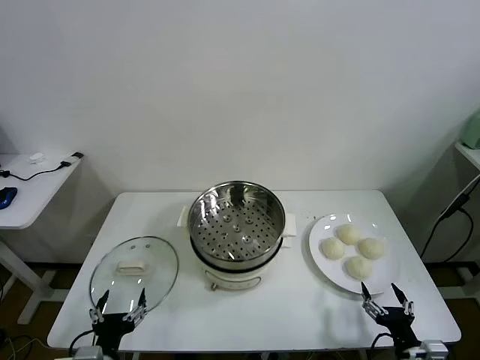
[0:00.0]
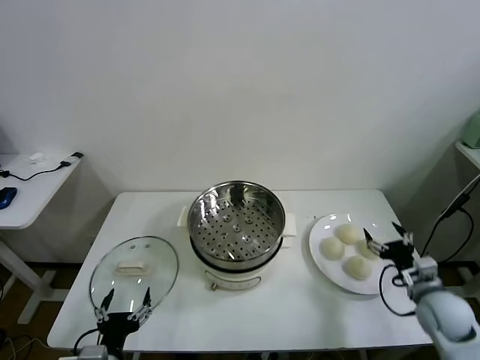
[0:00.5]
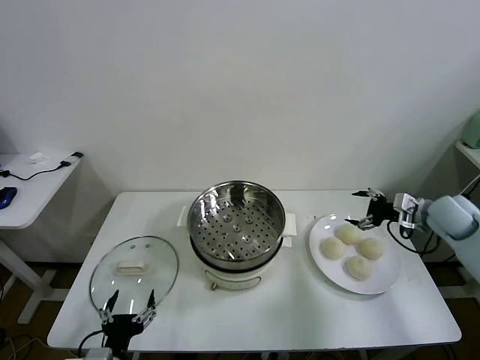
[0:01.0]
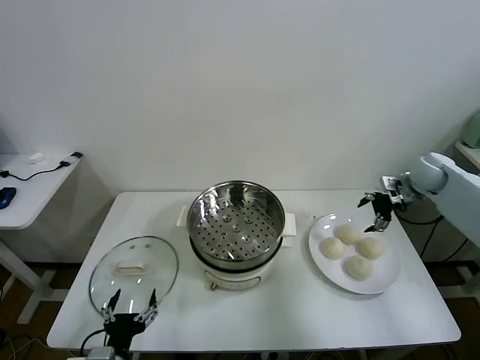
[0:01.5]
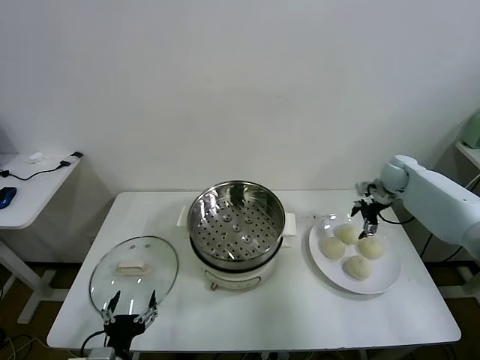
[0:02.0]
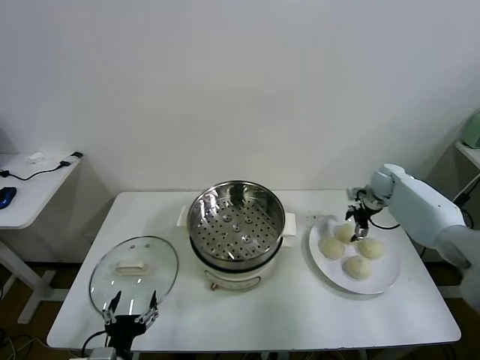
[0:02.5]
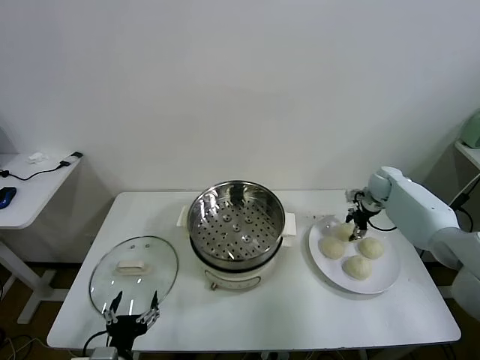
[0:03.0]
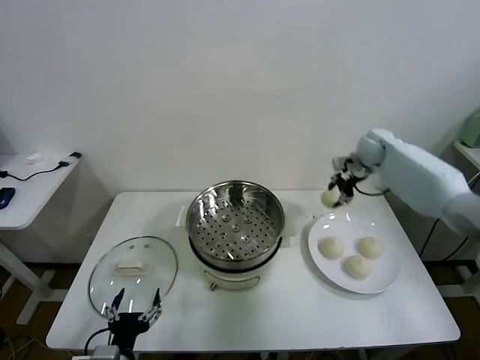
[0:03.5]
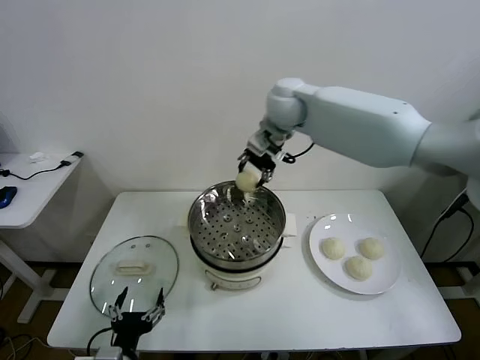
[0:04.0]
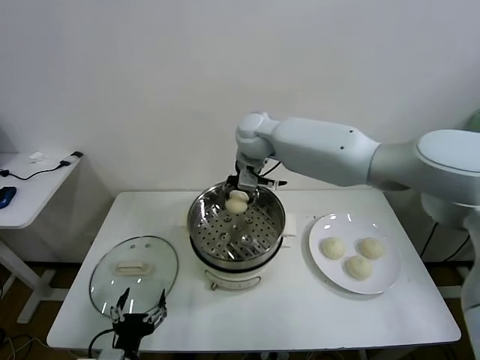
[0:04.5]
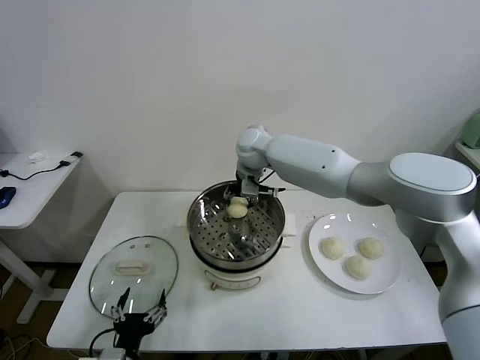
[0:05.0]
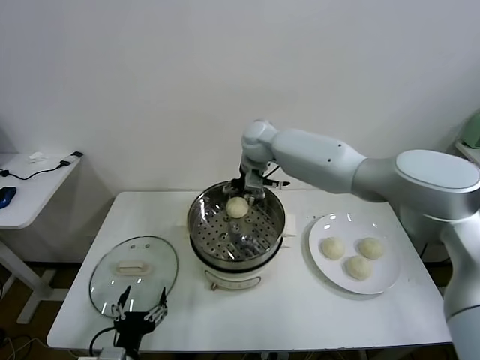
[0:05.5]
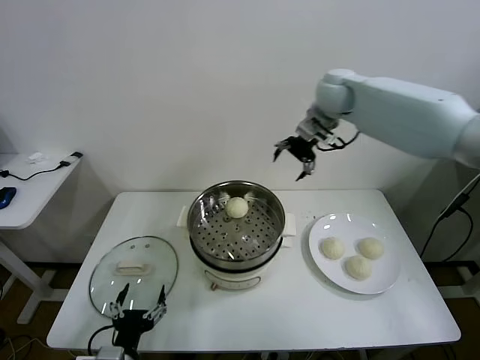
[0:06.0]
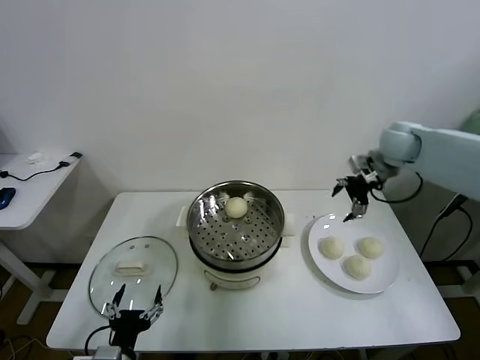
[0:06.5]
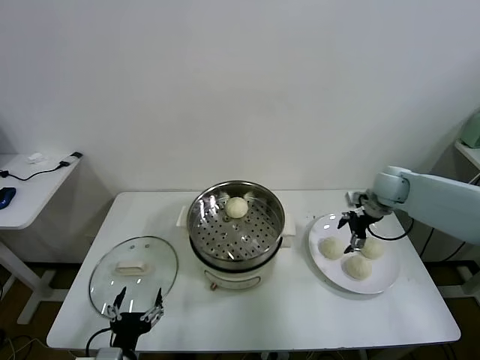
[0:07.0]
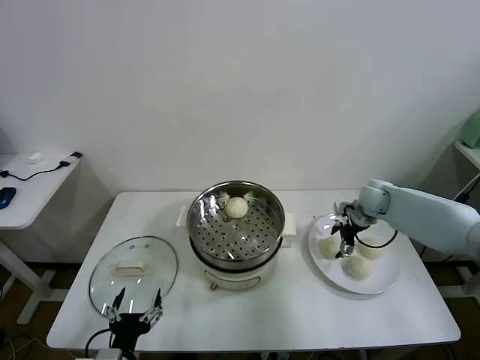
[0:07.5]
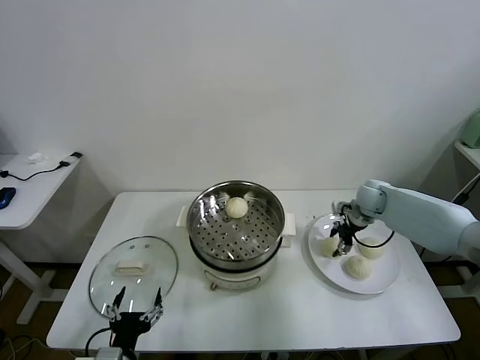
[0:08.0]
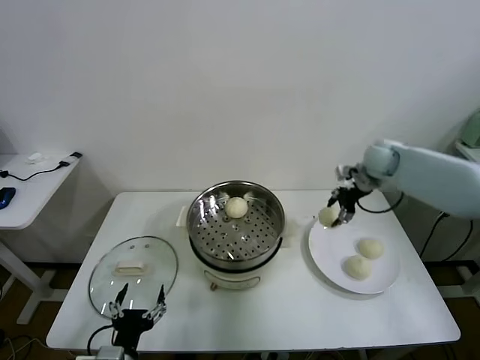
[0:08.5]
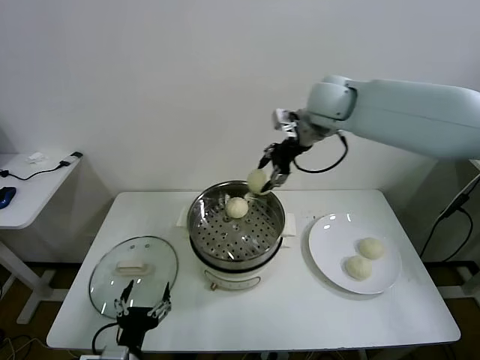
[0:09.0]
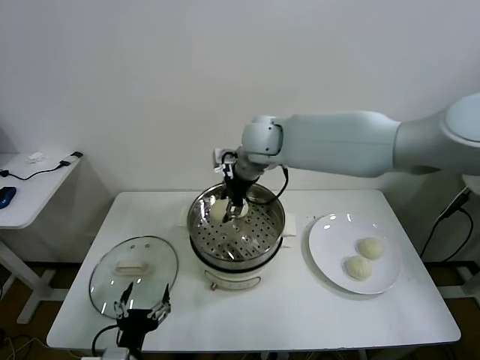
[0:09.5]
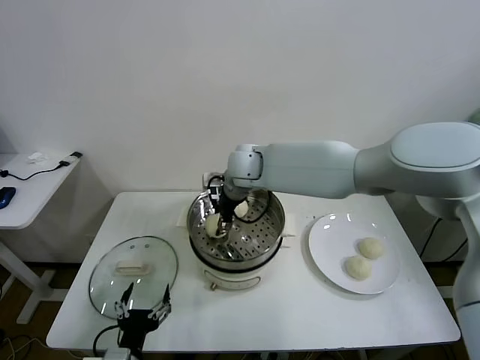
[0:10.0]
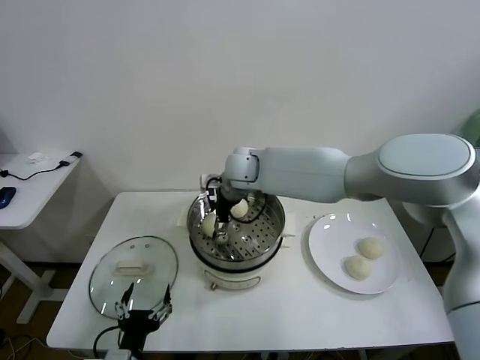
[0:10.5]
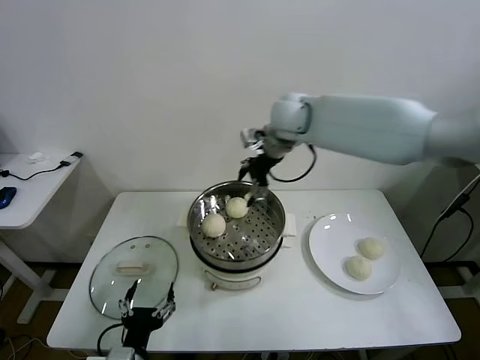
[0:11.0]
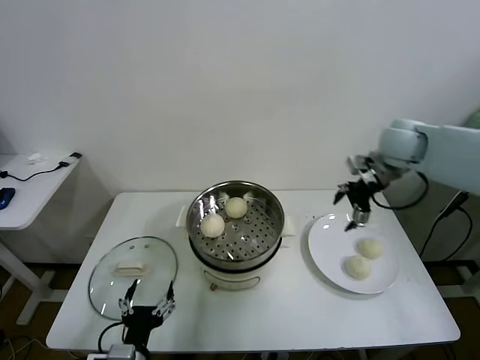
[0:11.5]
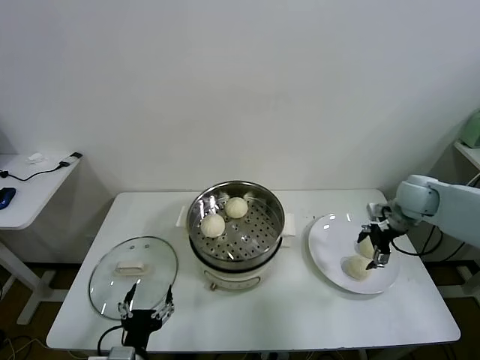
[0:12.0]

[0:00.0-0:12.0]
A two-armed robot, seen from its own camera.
Task of the whole recording: take steamed baozi put them in steamer.
Step, 0:00.0 to 0:02.5: Grasp the baozi in the plate with right gripper.
Step, 0:03.0 to 0:05.0: Place the baozi on the steamer with right gripper.
Step, 0:05.5 to 0:07.5: Grasp the baozi in the plate with right gripper.
Step, 0:08.5 to 0:10.0: Place the baozi on the steamer with right gripper.
0:02.0 to 0:04.0: The right gripper moves to the left and upward, roughly 40 cm, and closes.
0:04.0 to 0:06.0: The right gripper goes about 20 cm to the right, and opens its fingers.
0:06.0 to 0:08.0: The right gripper moves downward, approximately 25 cm, and closes its fingers.
0:08.0 to 0:10.0: The right gripper is displaced to the left by some 35 cm.
0:10.0 to 0:12.0: The right gripper shifts approximately 40 cm to the right, and opens up.

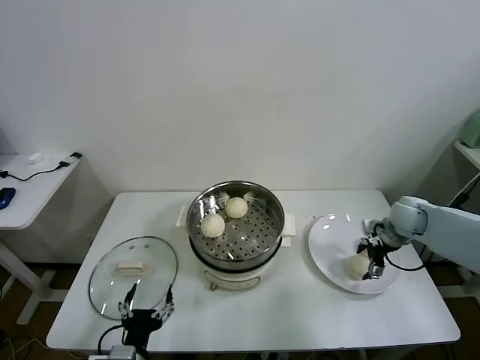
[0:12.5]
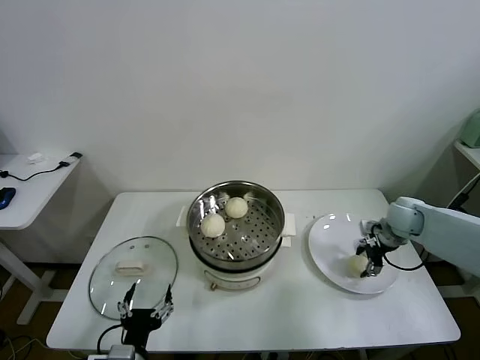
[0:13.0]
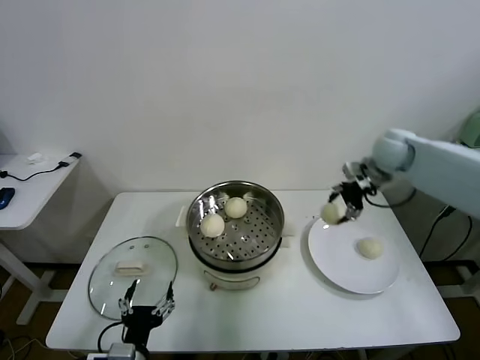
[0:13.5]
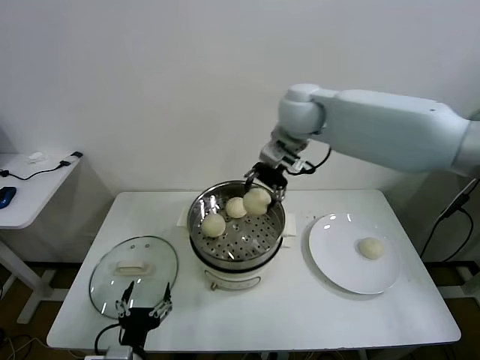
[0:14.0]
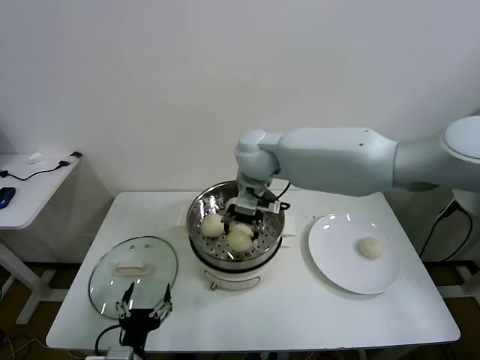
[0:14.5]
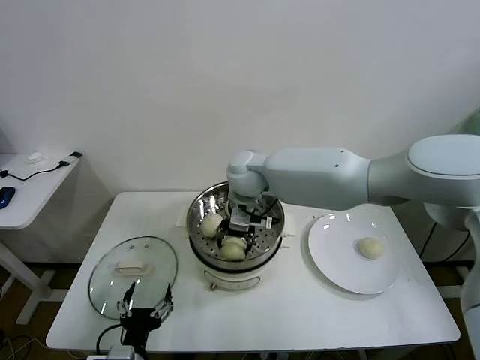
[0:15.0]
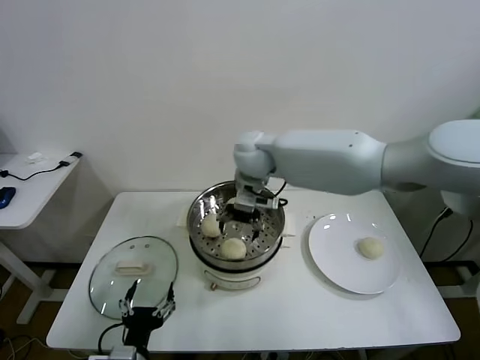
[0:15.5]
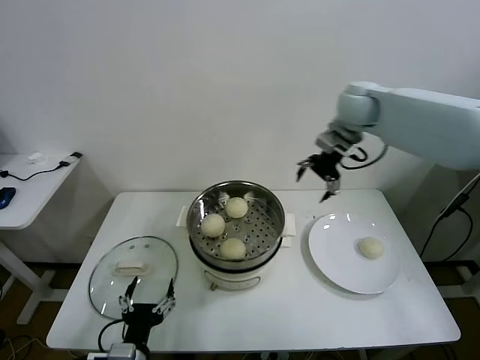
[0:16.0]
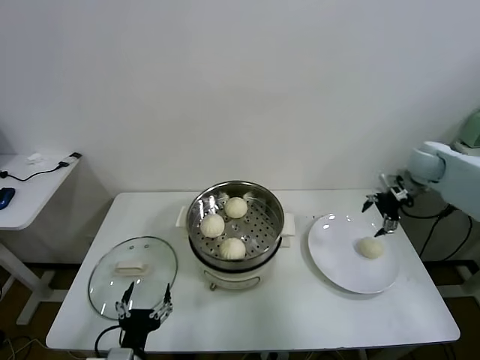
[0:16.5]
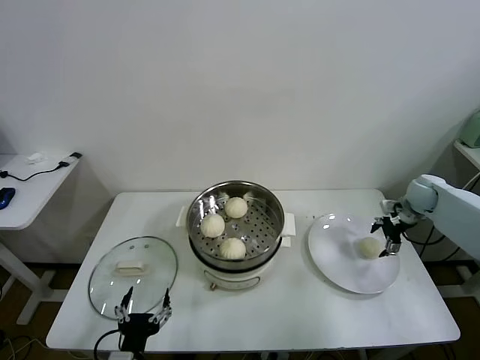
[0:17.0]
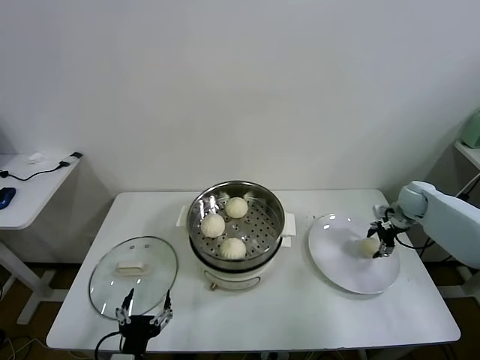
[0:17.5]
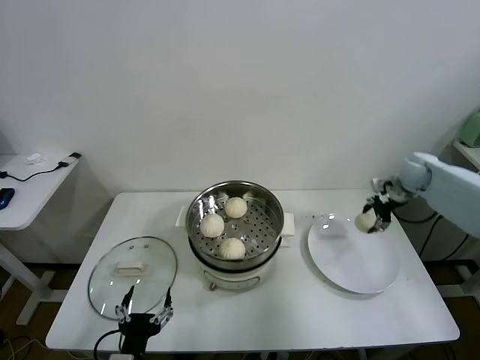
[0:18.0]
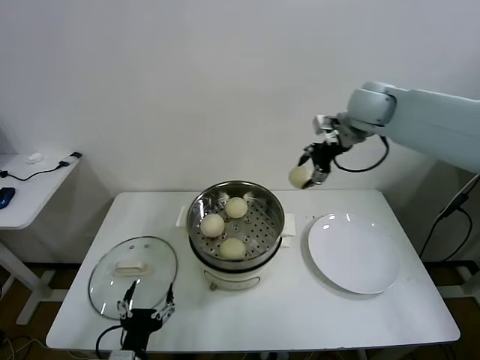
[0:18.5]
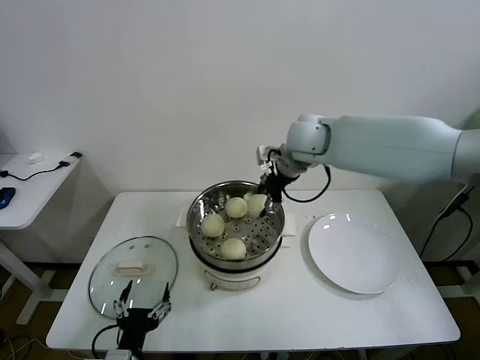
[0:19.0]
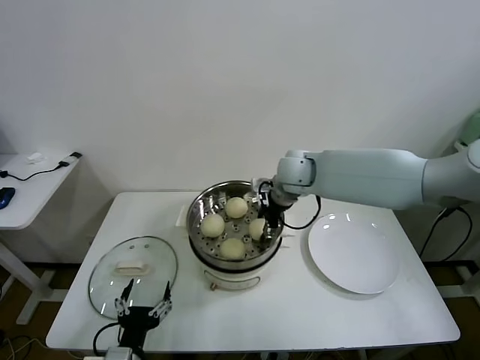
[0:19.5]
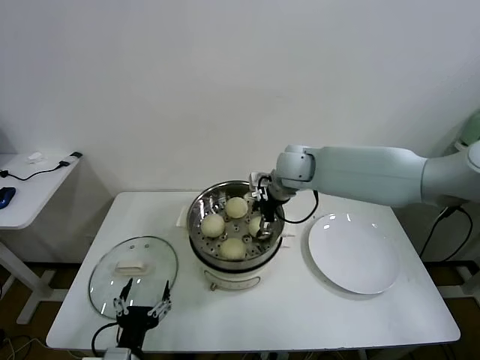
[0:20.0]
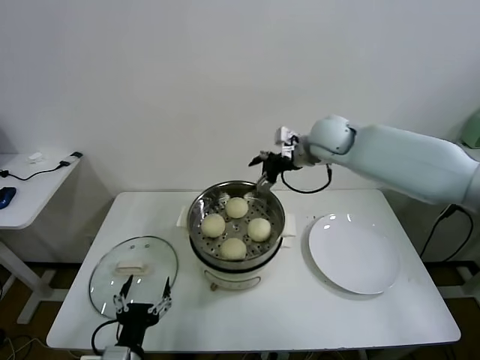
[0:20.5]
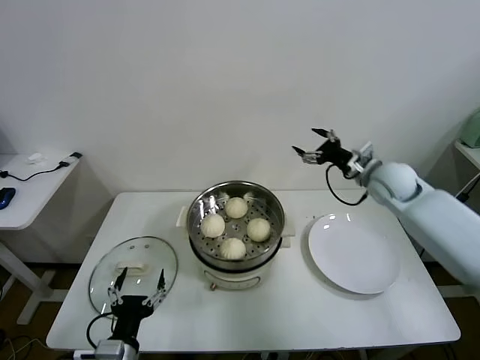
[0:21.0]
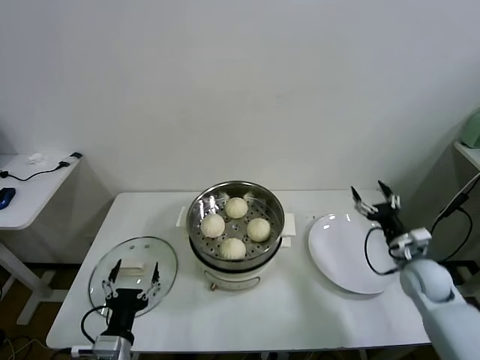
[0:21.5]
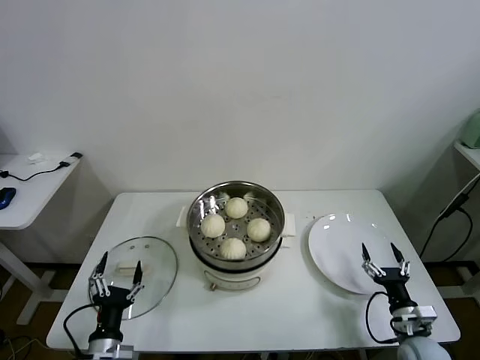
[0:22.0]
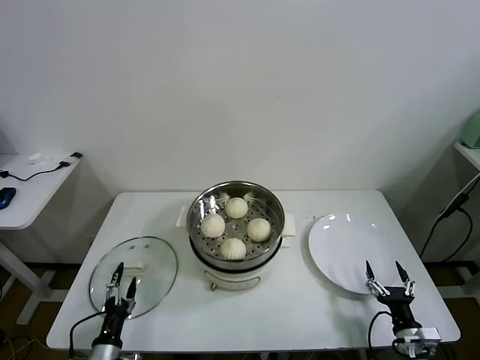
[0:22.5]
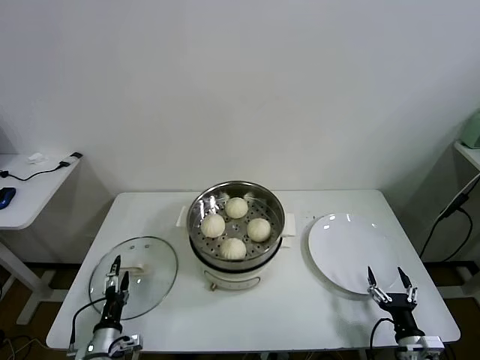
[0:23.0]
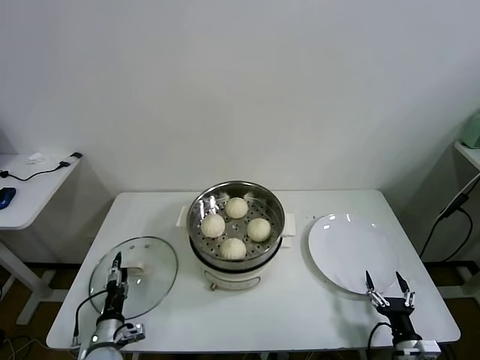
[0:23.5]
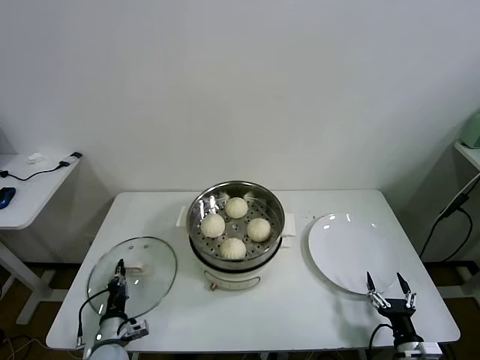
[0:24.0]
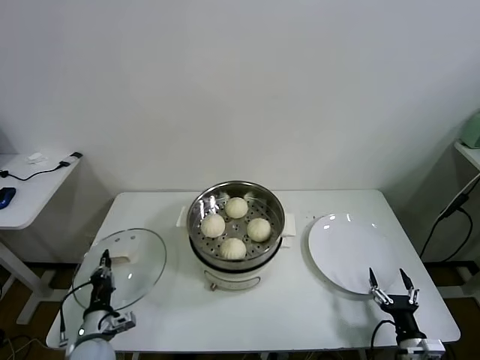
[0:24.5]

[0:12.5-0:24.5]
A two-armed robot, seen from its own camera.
Task of the whole recording: take steamed baozi put them in steamer.
Step, 0:13.0 to 0:15.0: Place the baozi on the steamer with right gripper.
Step, 0:15.5 to 0:17.5: Grasp the baozi in the plate with right gripper.
Step, 0:18.0 to 0:20.0: Place the baozi on the steamer with right gripper.
Step, 0:20.5 to 0:24.0: Grasp the pot lid with left gripper.
0:12.5 to 0:14.5: The right gripper is displaced to the left and upward by some 40 cm, and closes.
0:14.5 to 0:16.5: The right gripper goes roughly 40 cm to the right, and opens up.
0:16.5 to 0:18.5: The right gripper shifts roughly 25 cm to the left and upward, and closes its fingers.
0:18.5 to 0:20.5: The right gripper is displaced downward and to the left by approximately 10 cm, and opens its fingers.
0:20.5 to 0:22.5: The right gripper moves downward, backward and to the right, approximately 60 cm, while the left gripper moves downward and to the left, roughly 15 cm.
0:22.5 to 0:24.5: The left gripper moves forward, about 5 cm, and closes up.

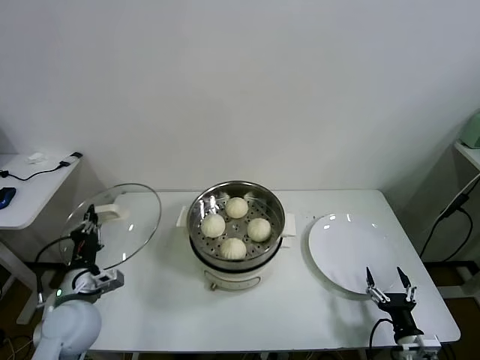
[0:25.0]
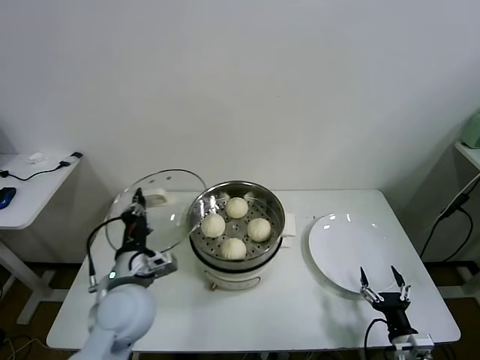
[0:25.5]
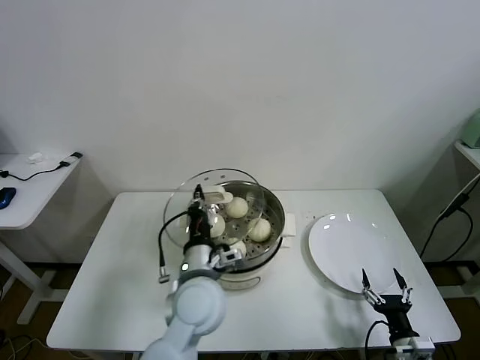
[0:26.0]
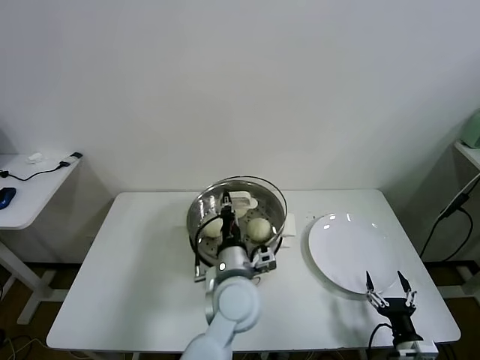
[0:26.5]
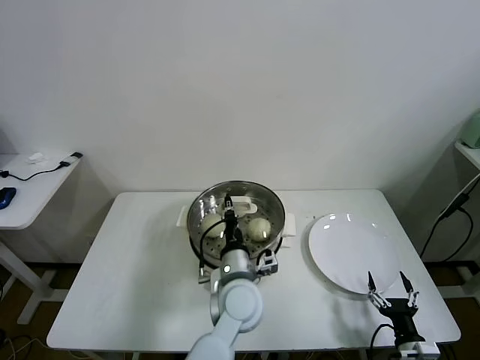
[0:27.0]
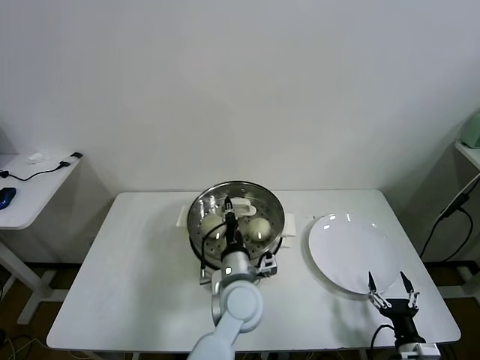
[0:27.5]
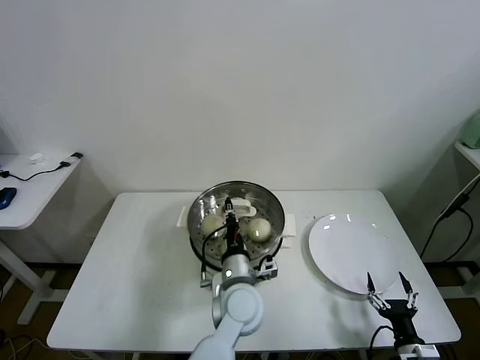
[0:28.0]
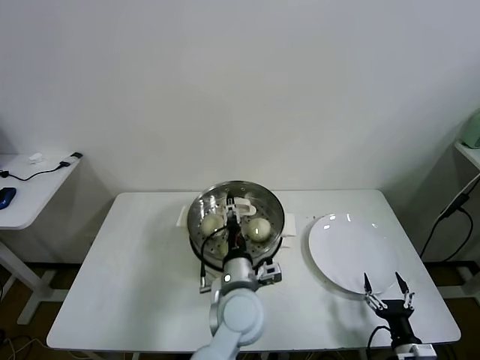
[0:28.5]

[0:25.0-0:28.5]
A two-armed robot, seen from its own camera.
Task of the whole recording: take steamed baozi put them in steamer.
Step, 0:25.0 to 0:28.0: Place the pot lid on the steamer with left gripper.
0:25.0 to 0:27.0: The left gripper moves to the right, roughly 35 cm.
0:27.0 to 0:28.5: The left gripper opens.
